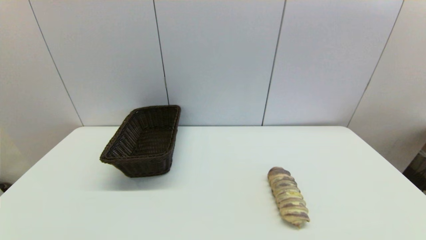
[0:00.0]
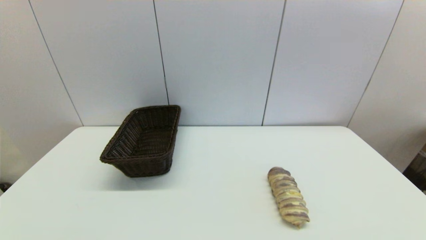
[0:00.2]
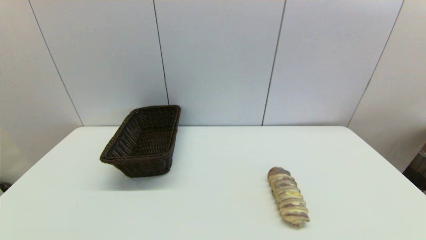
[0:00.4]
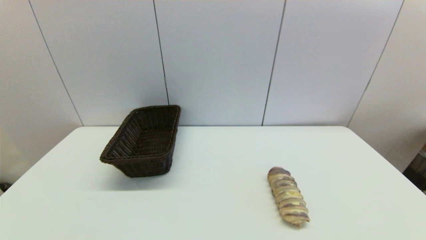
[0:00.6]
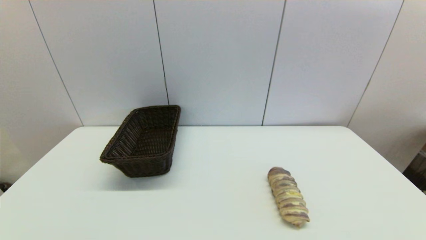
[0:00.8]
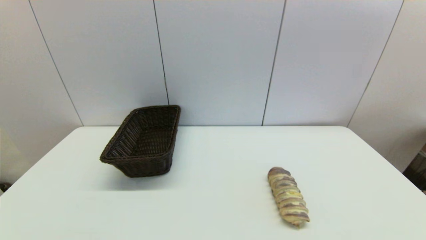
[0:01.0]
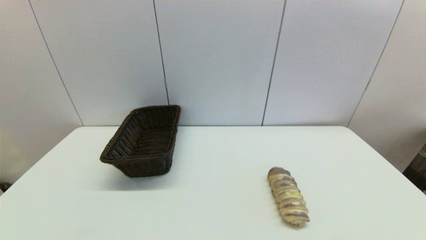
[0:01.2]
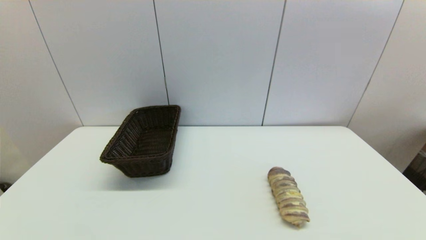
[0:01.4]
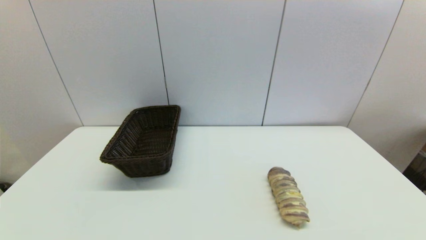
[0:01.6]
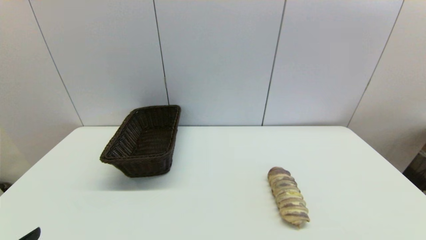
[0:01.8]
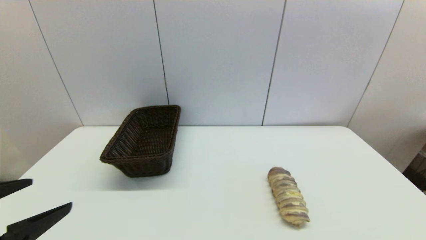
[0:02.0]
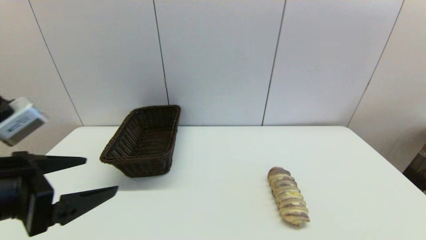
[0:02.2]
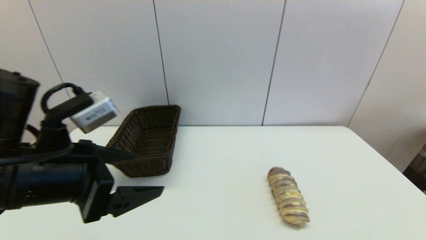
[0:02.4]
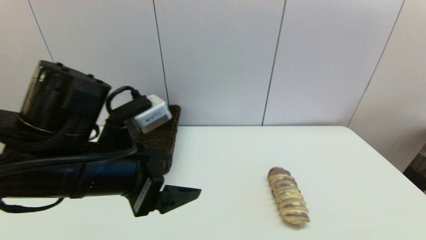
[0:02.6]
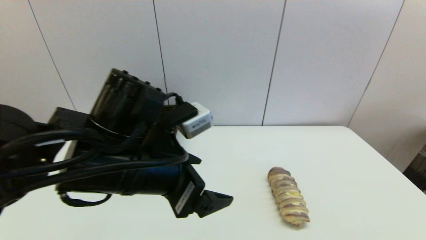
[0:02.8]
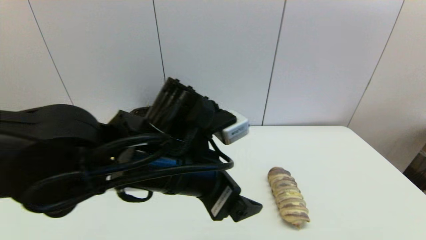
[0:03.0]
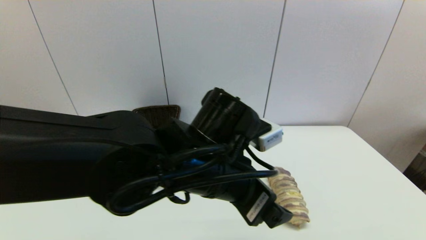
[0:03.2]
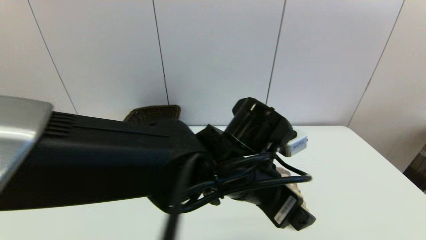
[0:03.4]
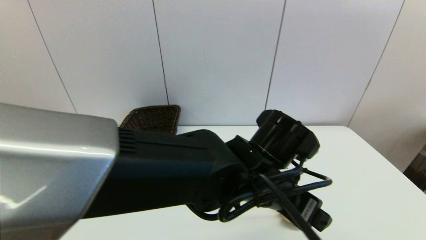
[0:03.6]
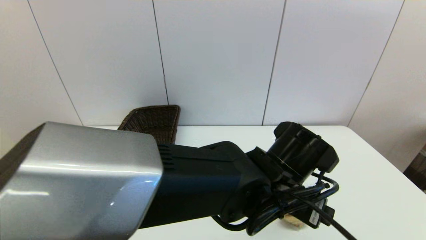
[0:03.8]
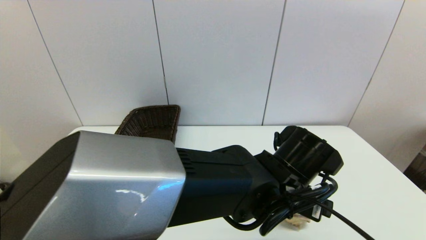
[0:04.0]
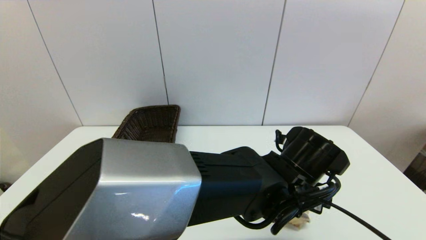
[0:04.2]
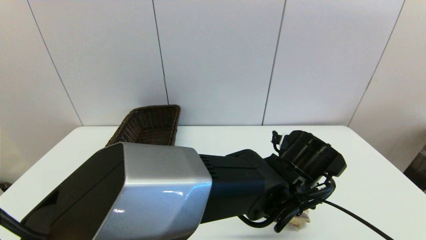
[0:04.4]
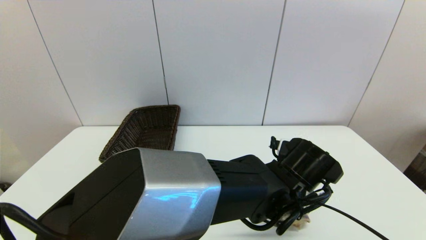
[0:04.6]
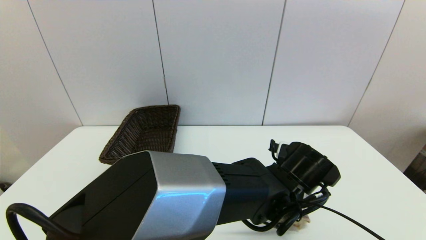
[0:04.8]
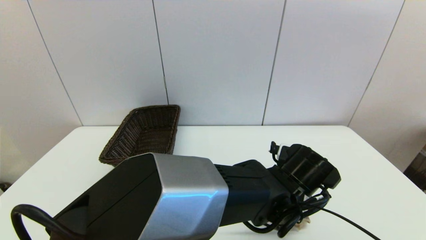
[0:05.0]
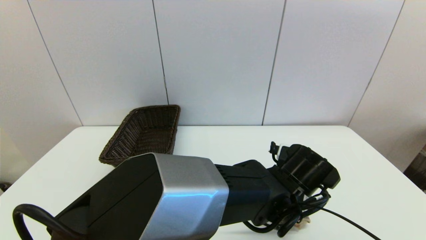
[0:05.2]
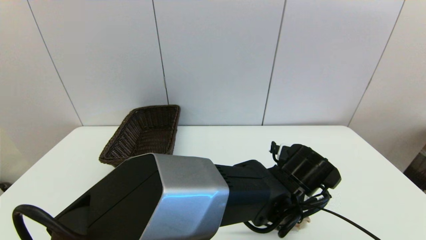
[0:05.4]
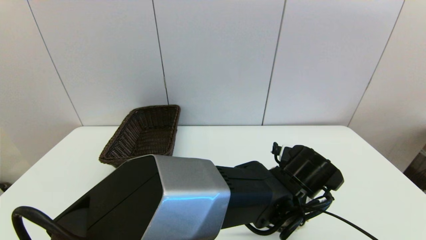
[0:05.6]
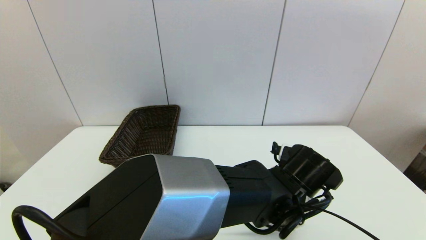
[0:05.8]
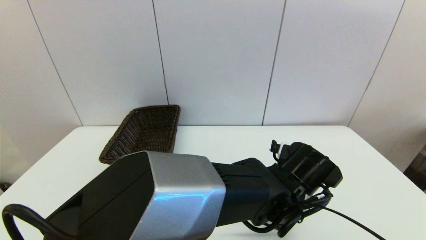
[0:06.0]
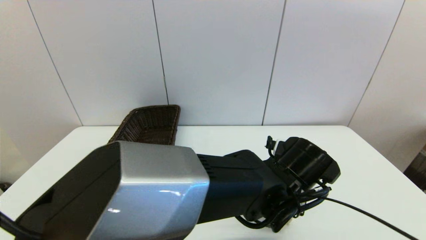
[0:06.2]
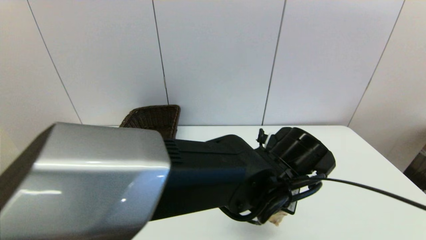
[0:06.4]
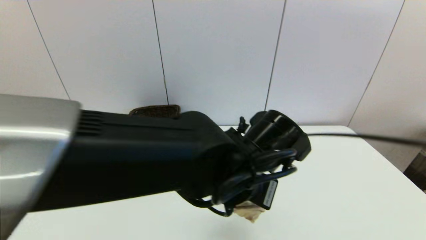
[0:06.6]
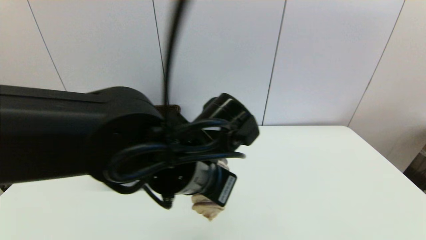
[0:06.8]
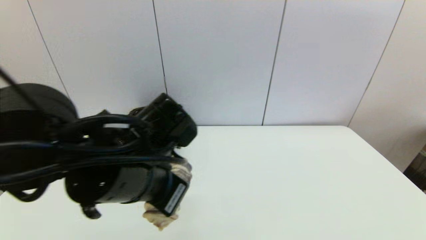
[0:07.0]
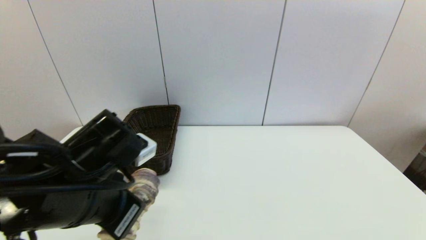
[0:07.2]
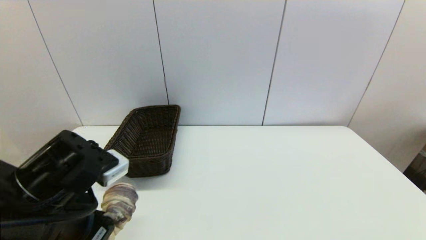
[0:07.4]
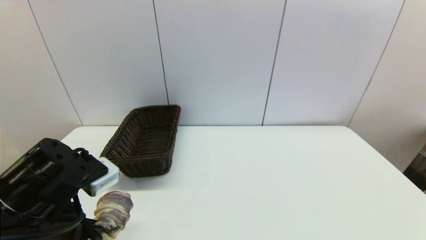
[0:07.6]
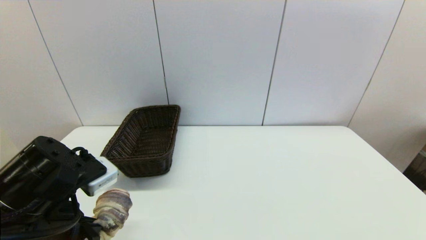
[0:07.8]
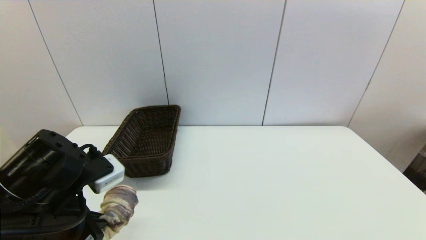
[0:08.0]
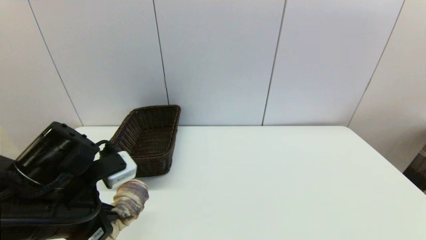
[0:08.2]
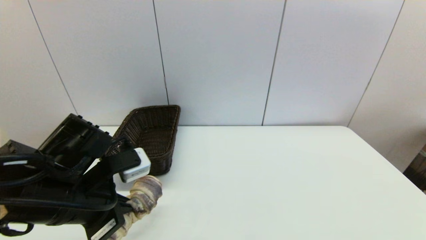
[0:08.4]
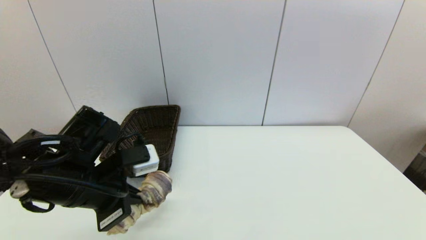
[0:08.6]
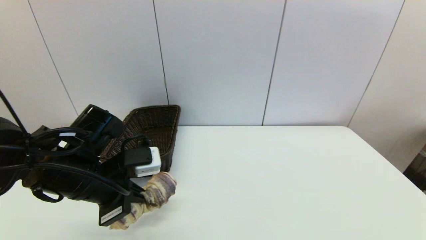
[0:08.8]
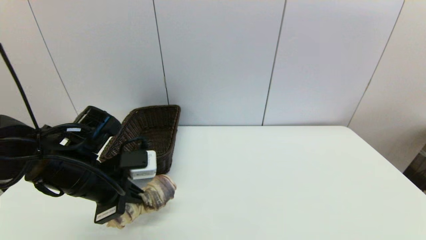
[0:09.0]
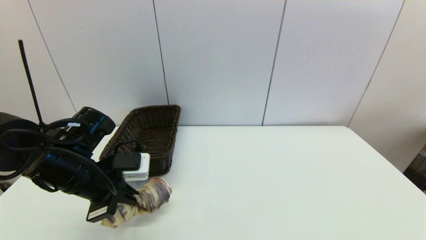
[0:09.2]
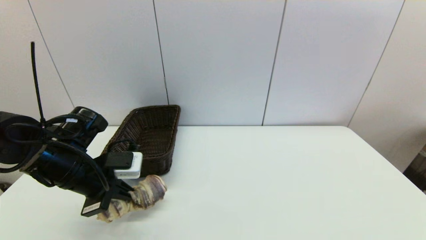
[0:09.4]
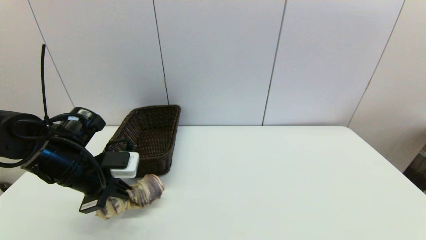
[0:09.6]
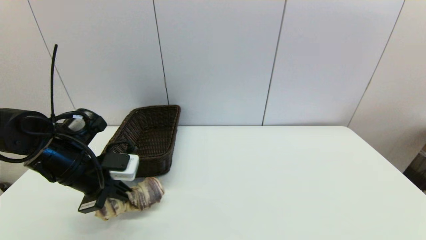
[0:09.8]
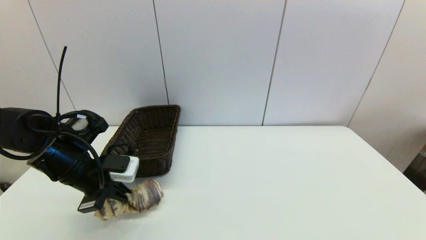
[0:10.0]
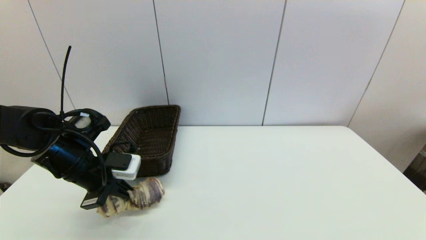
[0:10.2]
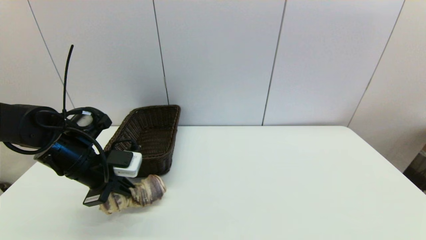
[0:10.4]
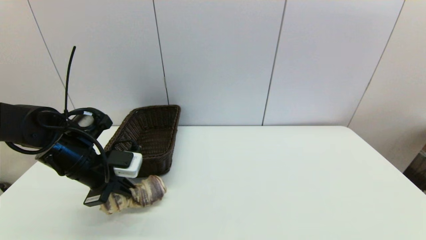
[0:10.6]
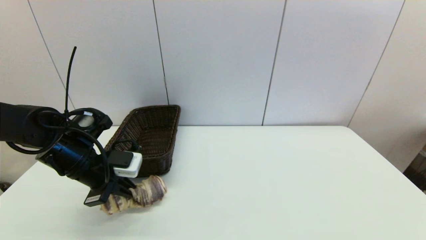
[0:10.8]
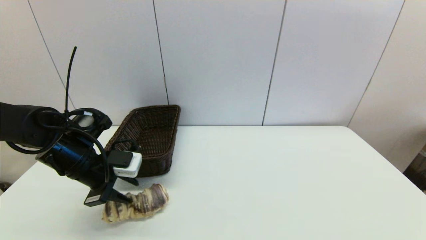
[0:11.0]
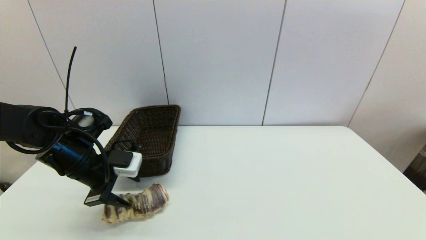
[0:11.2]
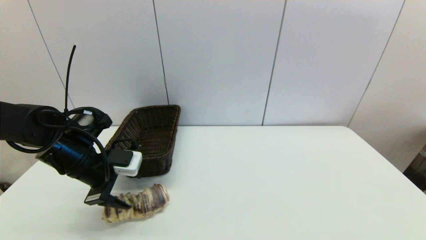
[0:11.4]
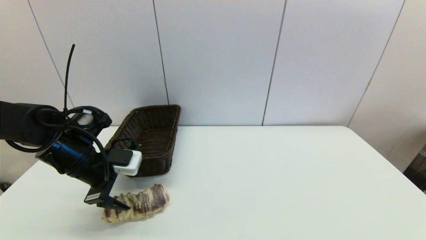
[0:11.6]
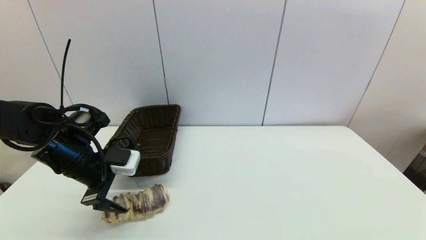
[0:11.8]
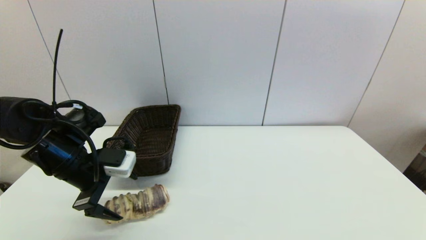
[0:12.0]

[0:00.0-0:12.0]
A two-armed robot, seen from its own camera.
Step, 0:01.8 to 0:06.2: Grasp the long bread with left gripper.
Step, 0:06.4 to 0:11.4: Place the long bread on the table with left gripper.
0:01.6 to 0:03.0: The left gripper moves to the right and forward, roughly 30 cm.
0:03.0 to 0:04.4: The left gripper moves to the right and downward, some 20 cm.
0:04.4 to 0:06.0: The left gripper closes.
0:06.0 to 0:07.6: The left gripper is displaced to the left by approximately 35 cm.
0:07.6 to 0:09.0: The left gripper shifts approximately 10 cm forward.
0:09.0 to 0:10.4: The left gripper is displaced forward by some 5 cm.
0:10.4 to 0:12.0: The left gripper opens.

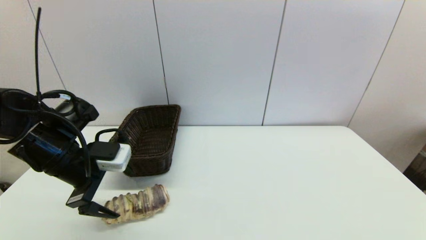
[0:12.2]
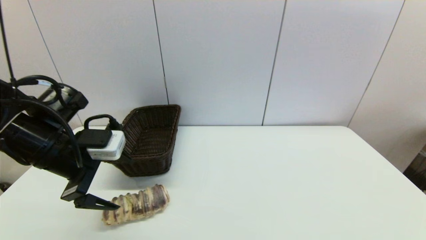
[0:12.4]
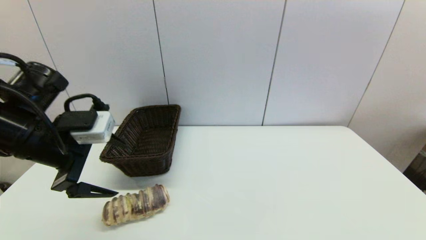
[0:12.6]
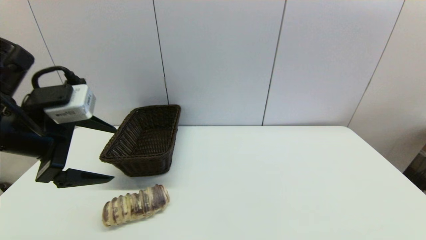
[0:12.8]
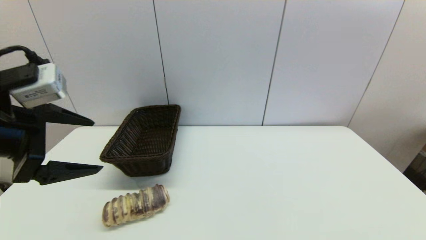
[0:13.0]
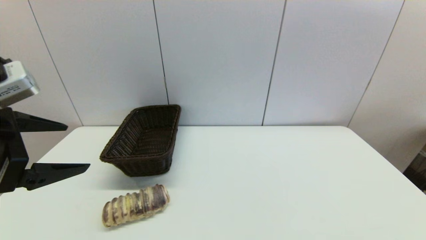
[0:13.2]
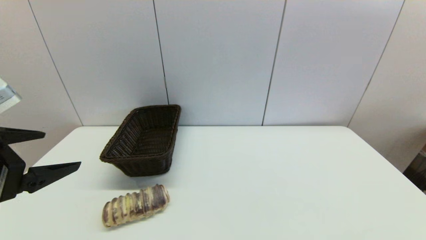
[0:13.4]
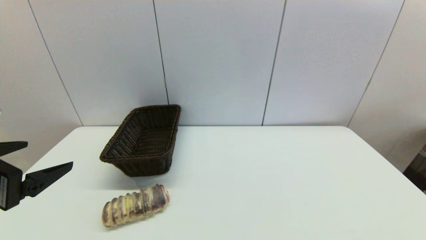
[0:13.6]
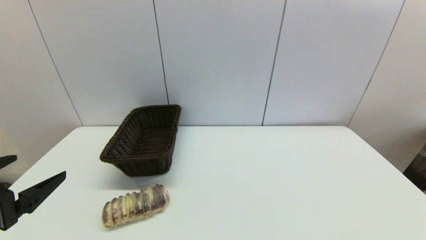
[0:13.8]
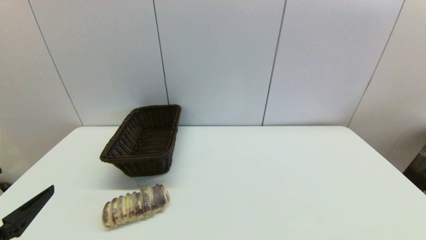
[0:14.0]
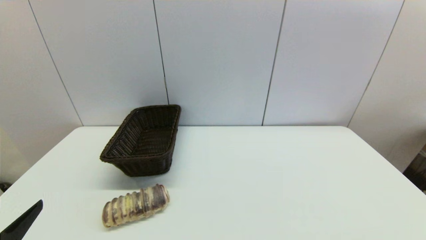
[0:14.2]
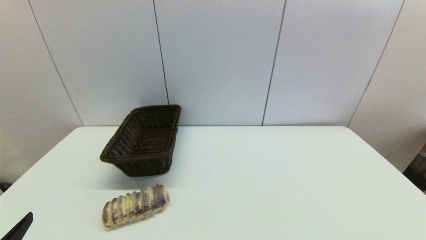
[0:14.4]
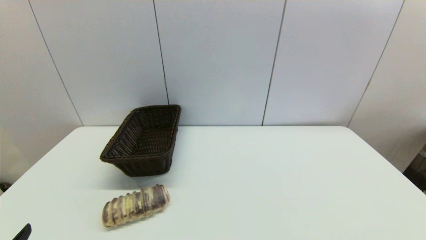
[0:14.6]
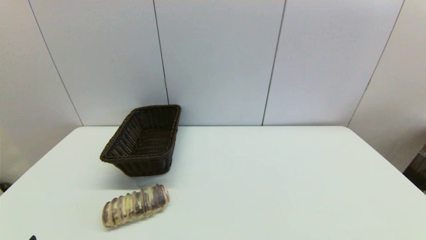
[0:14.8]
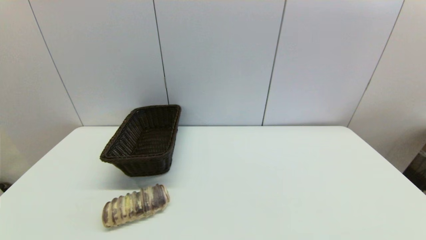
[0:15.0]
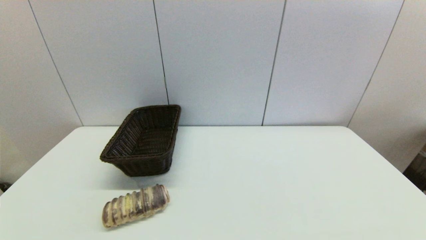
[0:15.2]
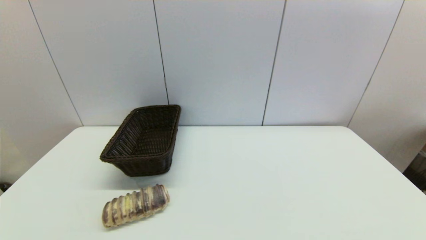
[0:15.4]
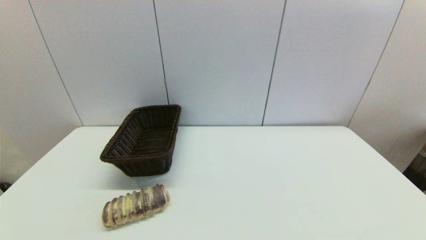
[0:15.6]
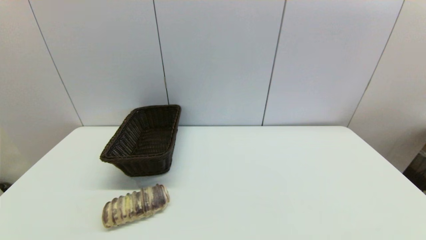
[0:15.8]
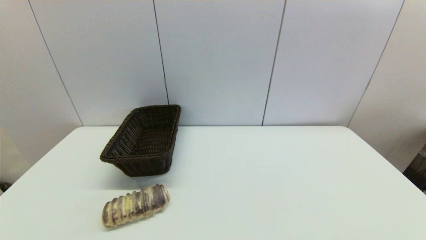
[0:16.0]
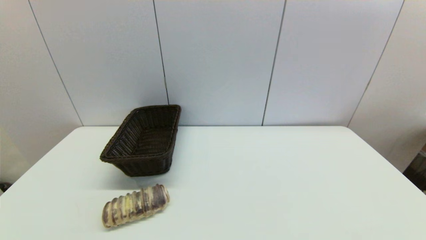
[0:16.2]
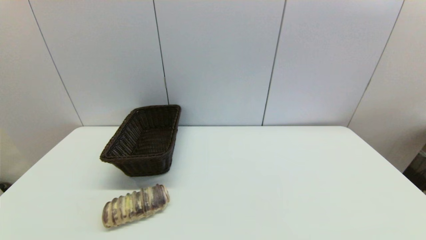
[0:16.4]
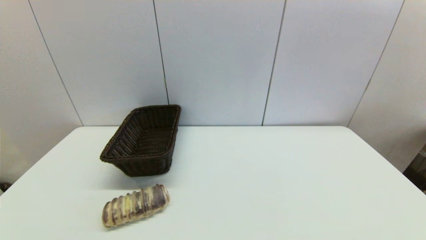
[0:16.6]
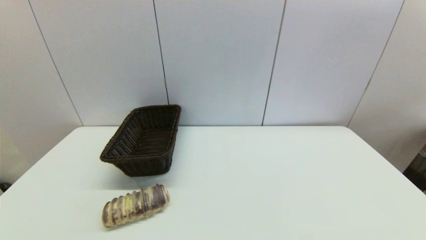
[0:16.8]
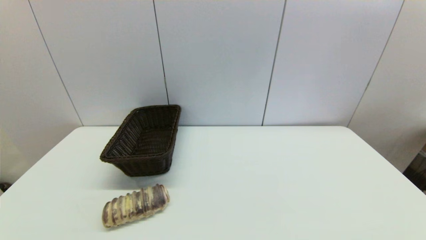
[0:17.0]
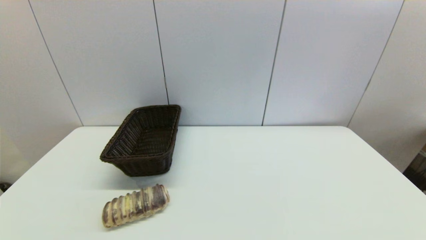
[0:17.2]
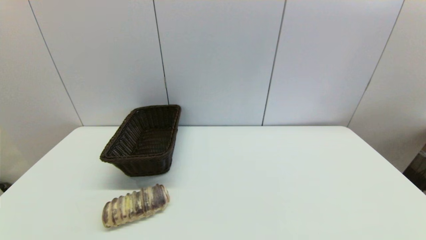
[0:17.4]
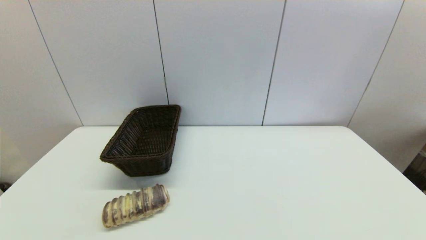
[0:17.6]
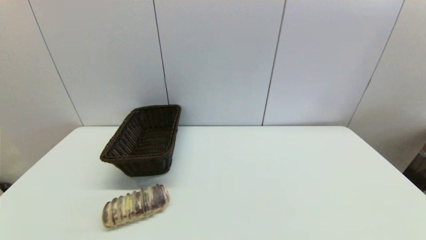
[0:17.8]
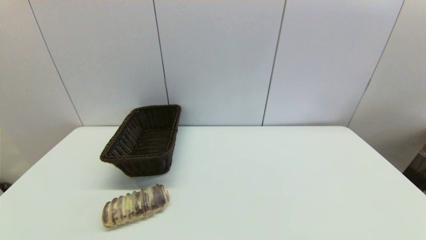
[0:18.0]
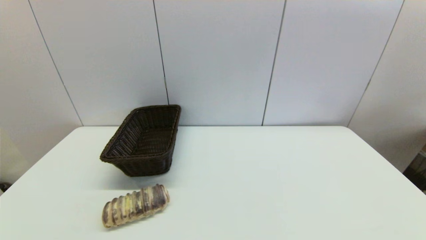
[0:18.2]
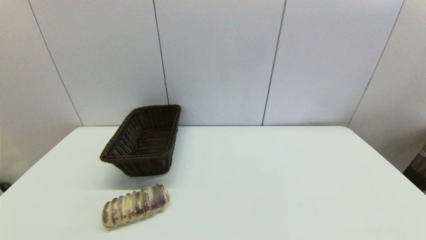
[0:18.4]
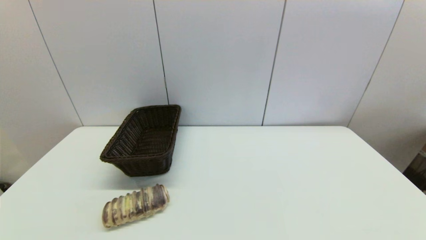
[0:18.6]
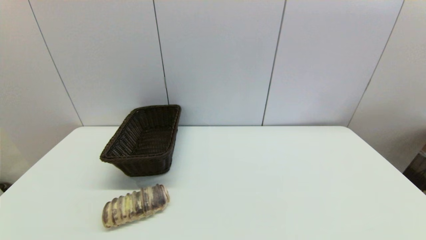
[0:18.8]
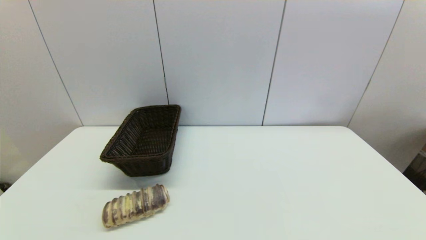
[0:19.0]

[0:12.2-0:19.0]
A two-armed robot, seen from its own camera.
0:12.2 to 0:13.6: The left gripper goes roughly 15 cm backward and upward.
0:13.6 to 0:15.0: The left gripper goes about 20 cm downward and backward.
0:16.2 to 0:19.0: Neither gripper changes place.
